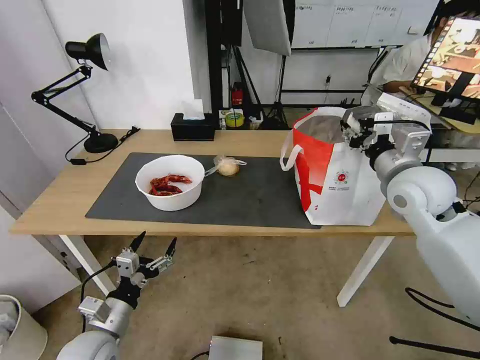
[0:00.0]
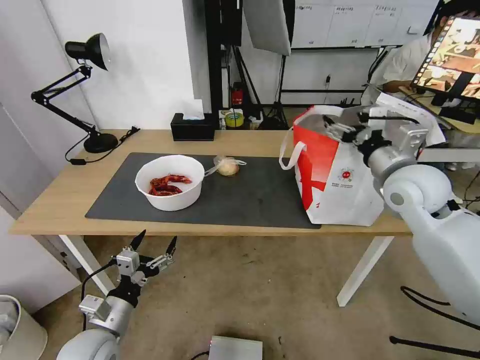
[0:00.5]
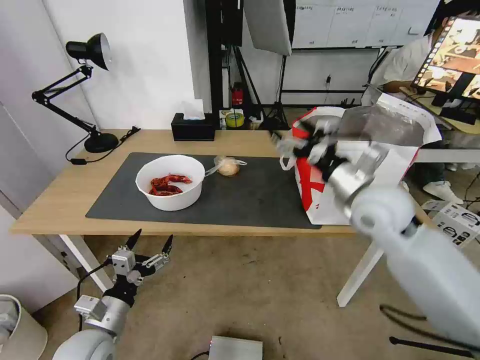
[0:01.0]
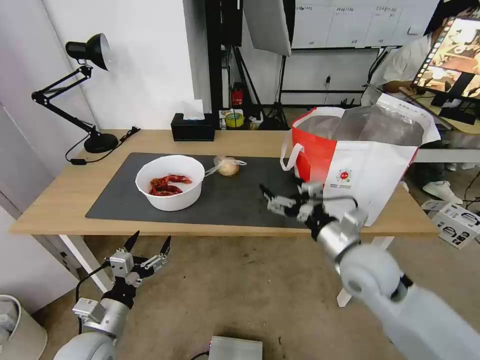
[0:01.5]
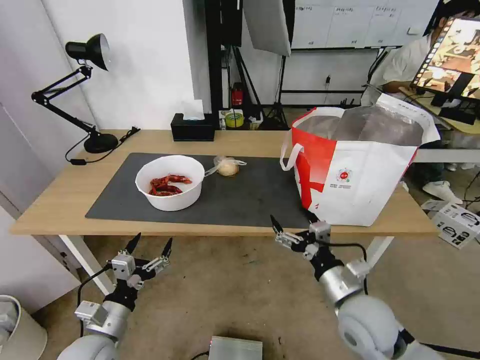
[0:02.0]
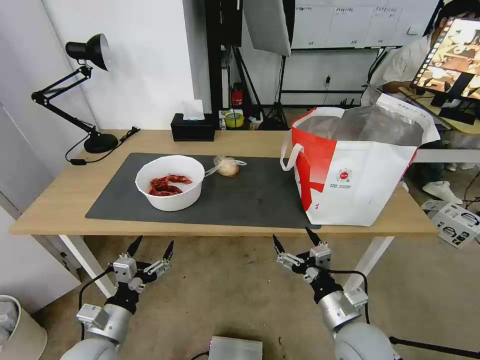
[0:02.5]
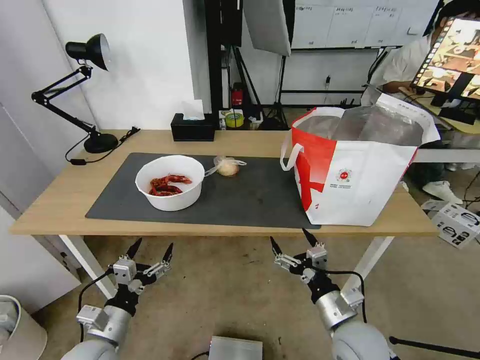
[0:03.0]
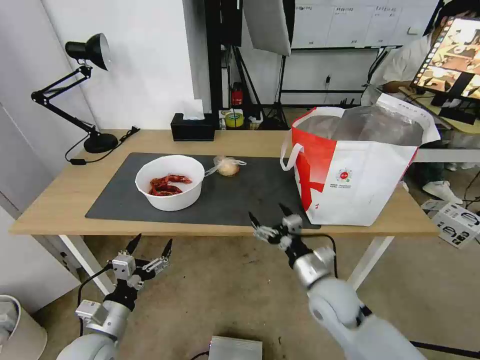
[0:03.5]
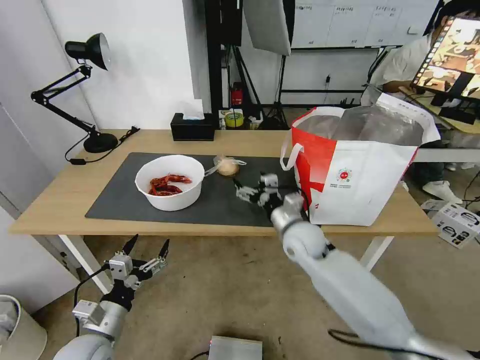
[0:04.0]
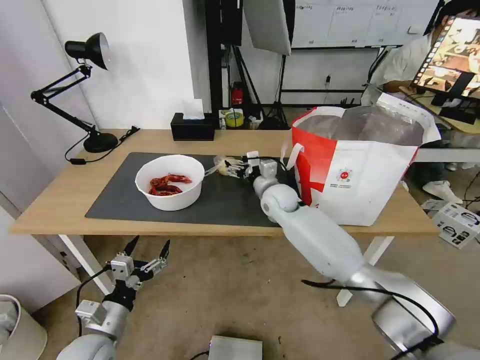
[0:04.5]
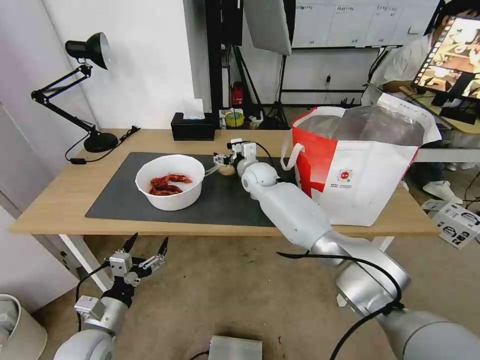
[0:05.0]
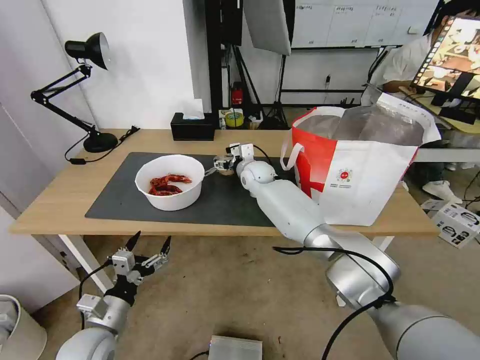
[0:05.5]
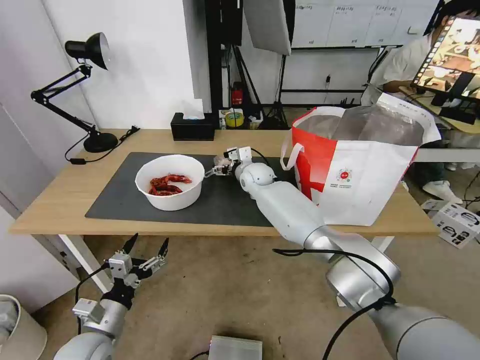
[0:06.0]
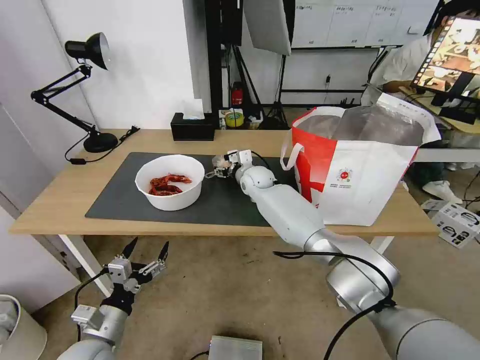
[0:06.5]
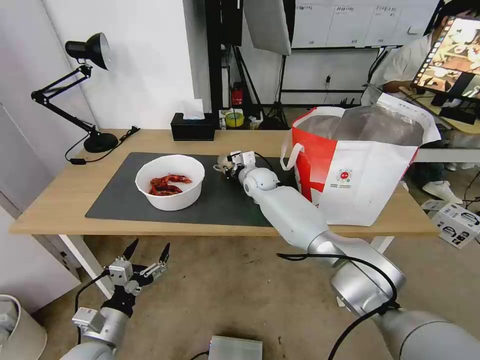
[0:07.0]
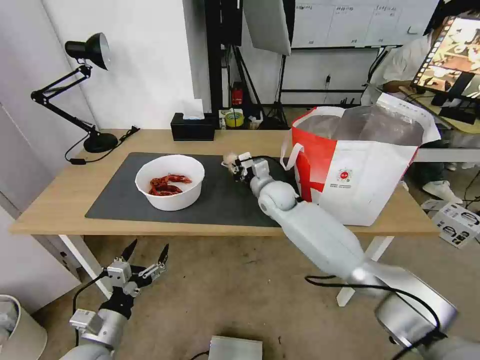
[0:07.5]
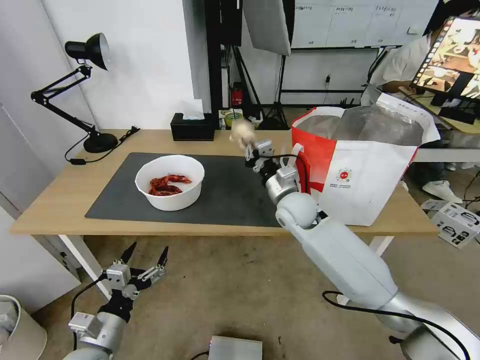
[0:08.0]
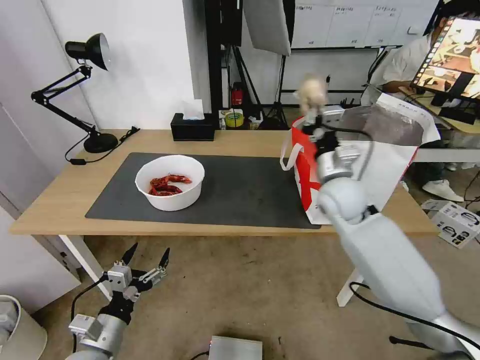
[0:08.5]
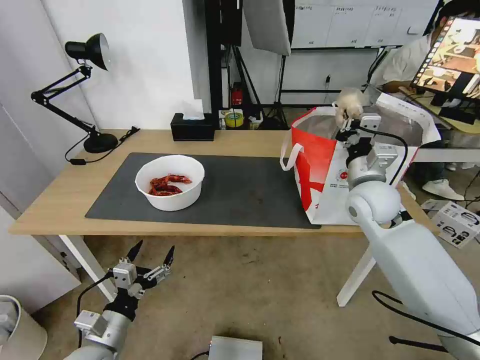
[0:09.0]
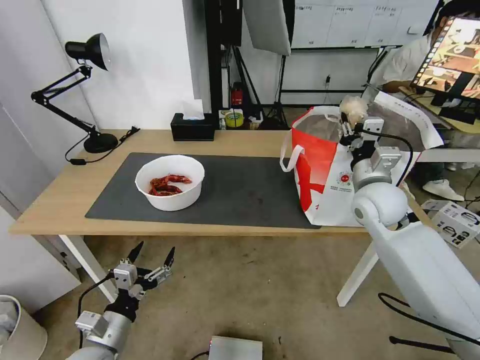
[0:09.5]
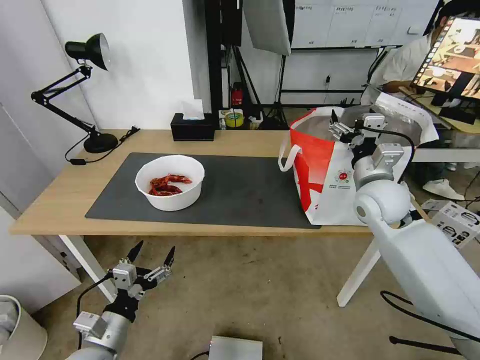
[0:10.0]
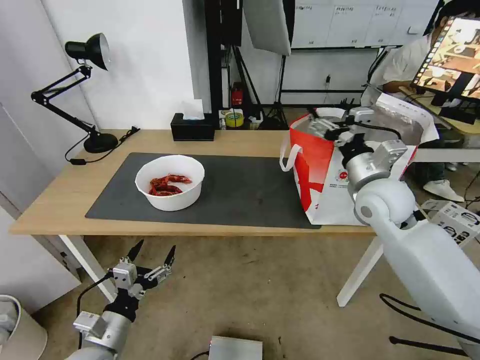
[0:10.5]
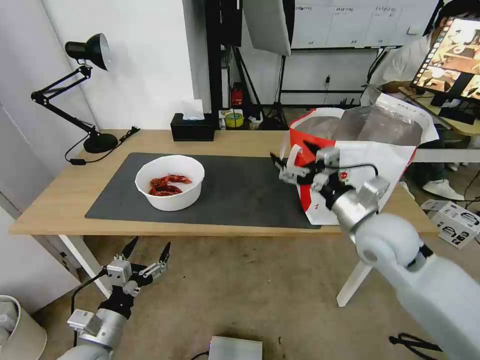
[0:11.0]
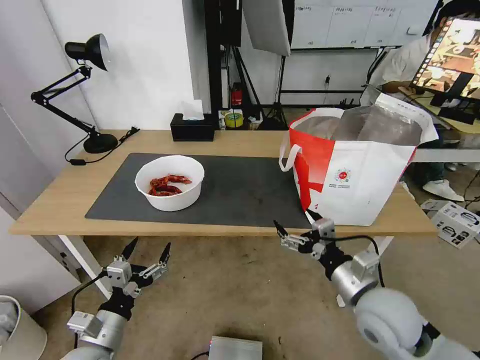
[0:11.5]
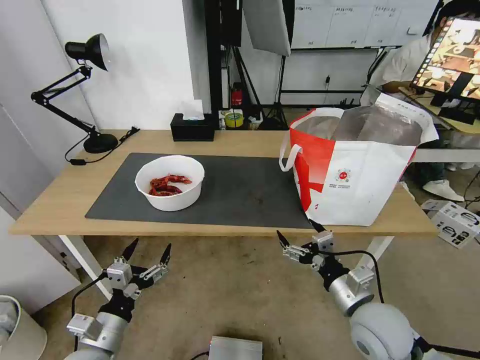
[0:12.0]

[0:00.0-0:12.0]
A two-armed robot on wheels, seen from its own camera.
Task of the whole recording: Pick up the trash from the table and place it into the takeout bag.
0:00.0 to 0:02.0: The right gripper is displaced downward, backward and to the left by approximately 25 cm, and opens up.
0:02.0 to 0:04.0: The right gripper moves forward and to the left, some 20 cm.
0:04.0 to 0:06.0: The right gripper moves forward and to the left, approximately 20 cm.
0:06.0 to 0:08.0: The right gripper is displaced backward and to the right by roughly 15 cm, and closes its fingers.
0:08.0 to 0:10.0: The right gripper heads to the right and upward, covering about 15 cm, and opens its fingers.
0:10.0 to 0:12.0: The right gripper shifts about 25 cm backward and downward.

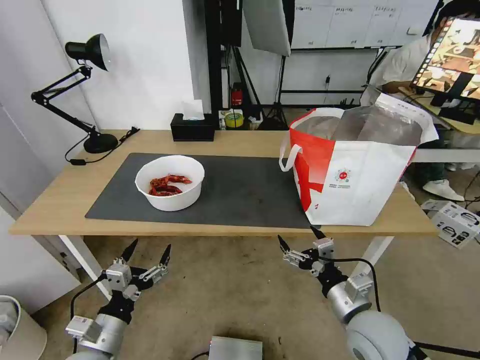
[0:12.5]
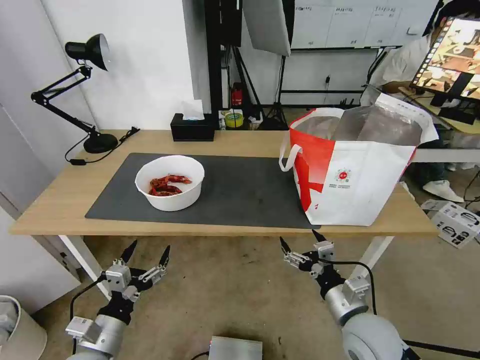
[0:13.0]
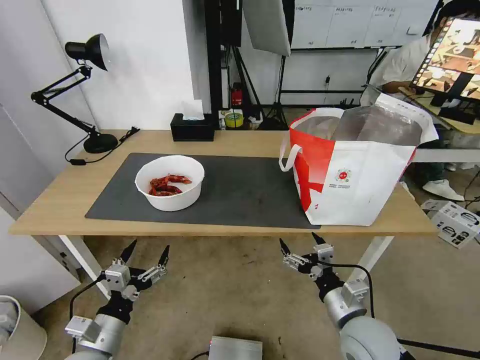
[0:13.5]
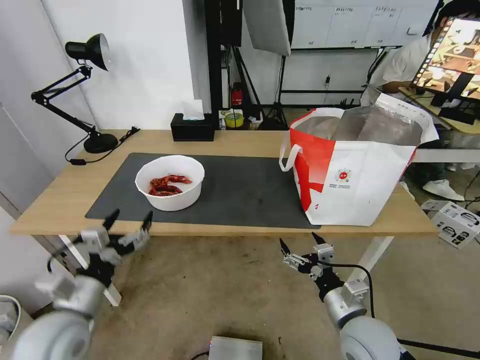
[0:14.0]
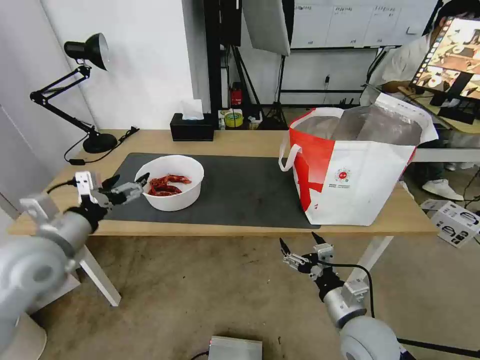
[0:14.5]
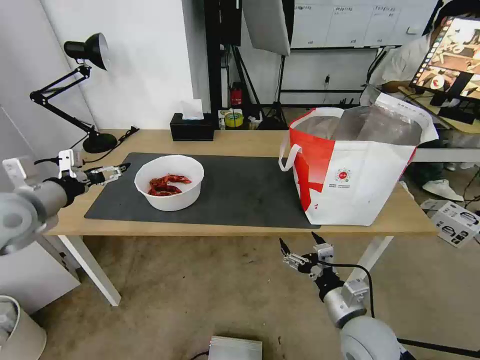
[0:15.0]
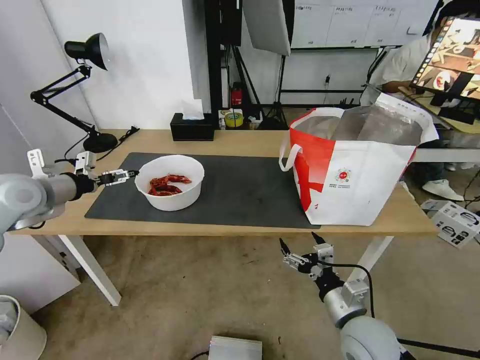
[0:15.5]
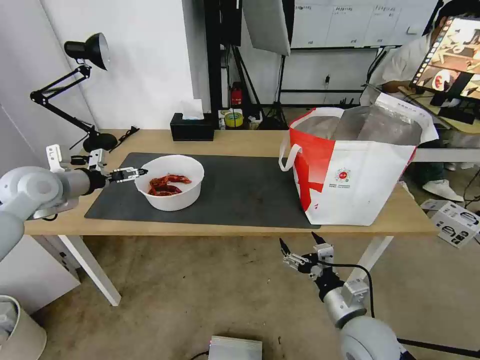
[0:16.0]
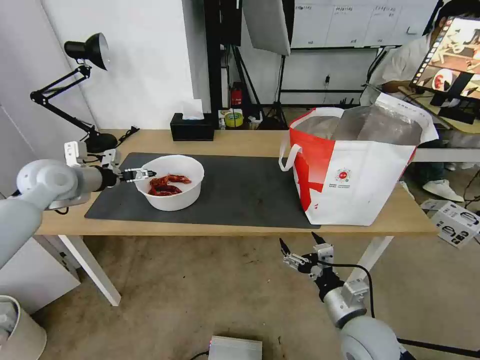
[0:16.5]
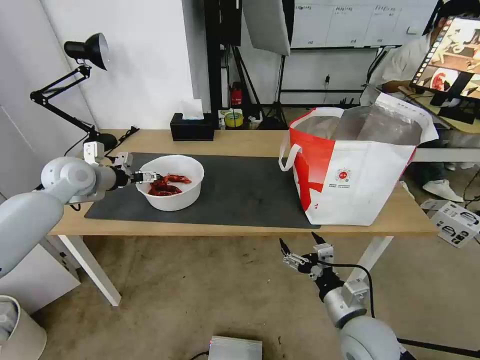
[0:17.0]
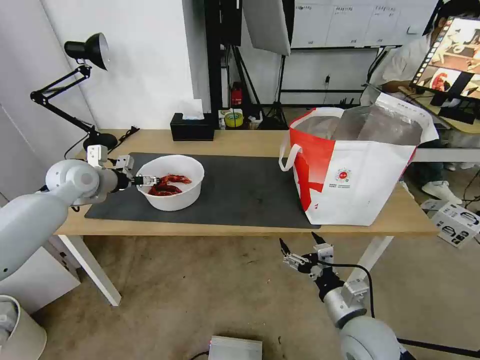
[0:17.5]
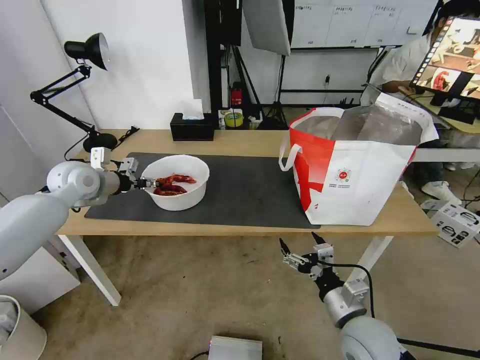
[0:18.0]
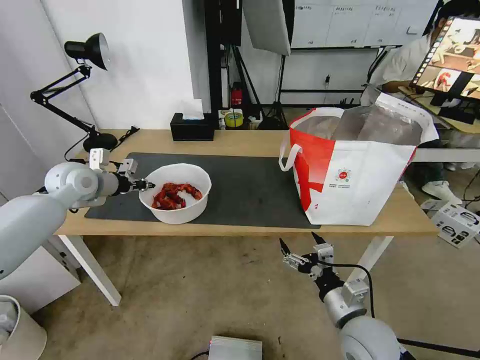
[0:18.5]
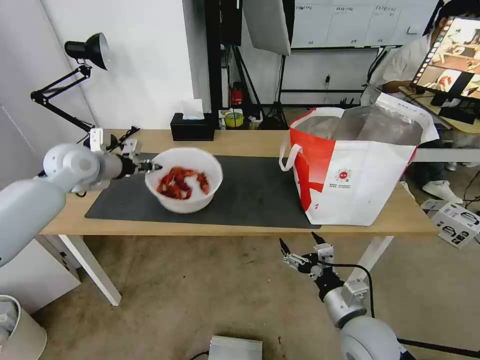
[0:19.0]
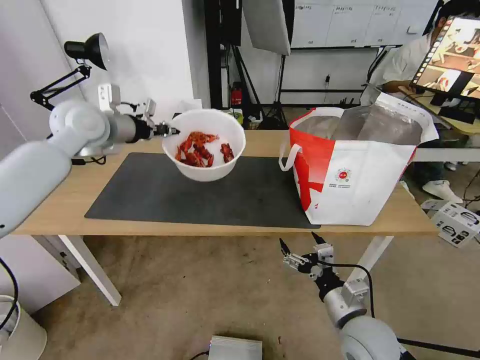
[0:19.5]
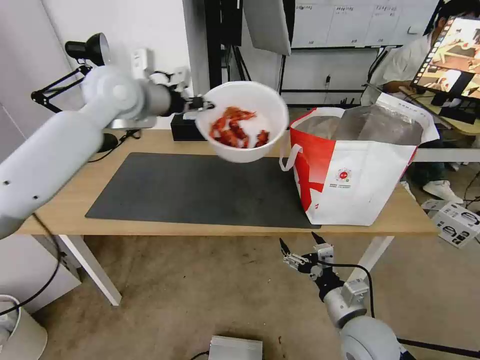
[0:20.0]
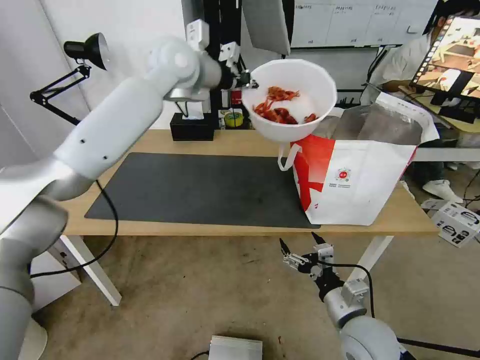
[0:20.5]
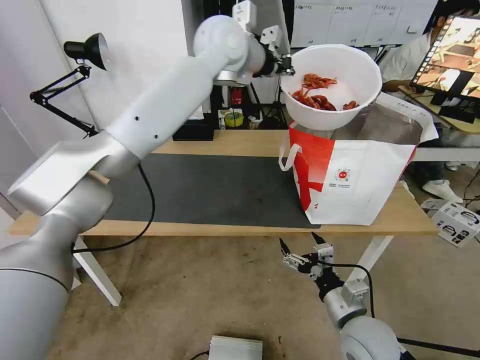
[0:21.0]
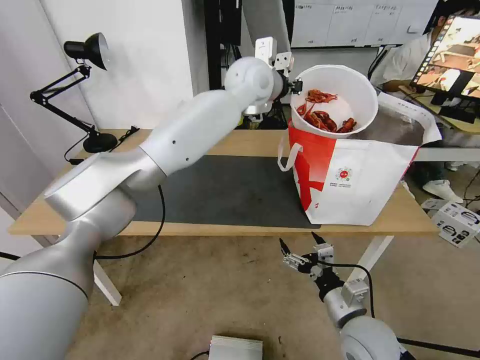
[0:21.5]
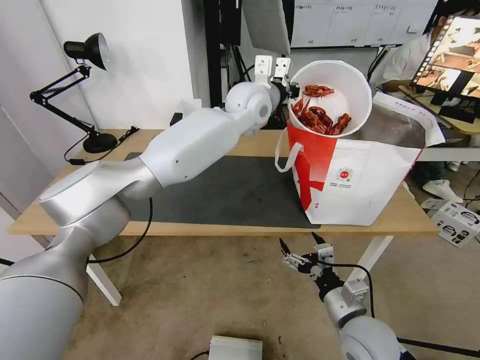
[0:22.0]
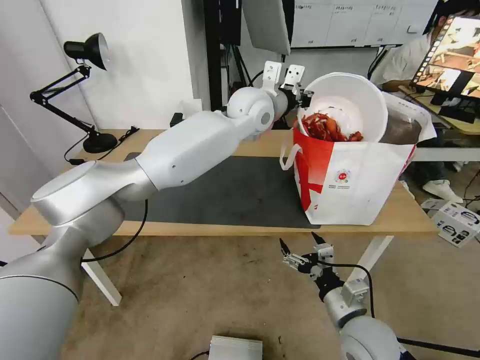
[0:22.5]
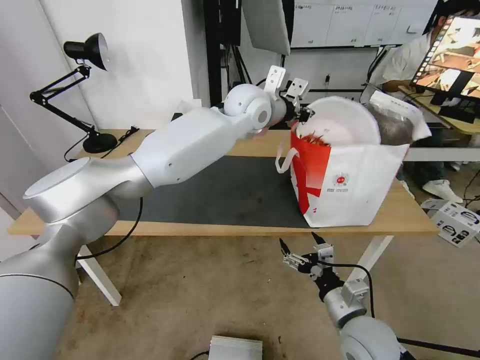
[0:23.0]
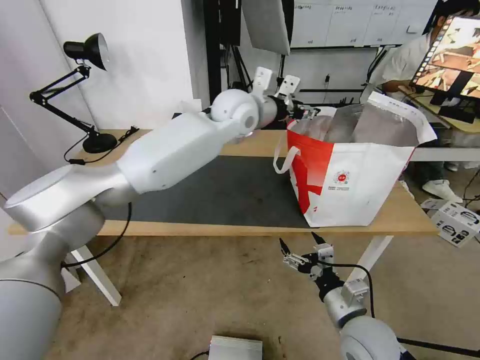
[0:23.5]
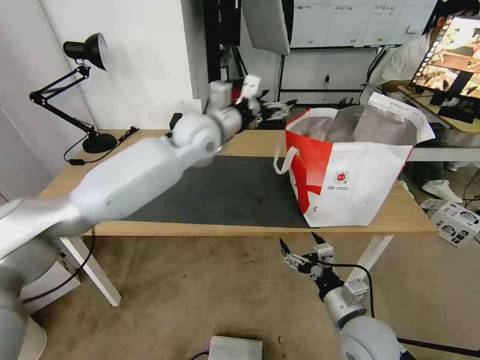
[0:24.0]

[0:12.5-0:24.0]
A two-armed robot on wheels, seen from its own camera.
Task of the whole recording: Pick up the trash from the table and place it into the takeout bag.
0:12.5 to 0:14.5: The left gripper is displaced upward and forward by some 25 cm.
0:14.5 to 0:16.5: The left gripper moves forward, some 15 cm.
0:16.5 to 0:18.5: The left gripper closes up.
0:18.5 to 0:20.0: The left gripper is displaced upward and to the right by roughly 25 cm.
0:20.0 to 0:22.0: The left gripper moves to the right, roughly 25 cm.
0:22.0 to 0:24.0: The left gripper shifts about 15 cm to the left and backward, and opens up.

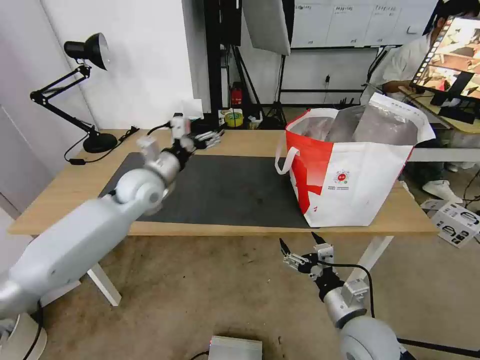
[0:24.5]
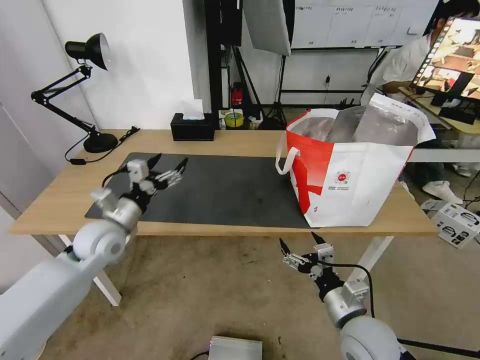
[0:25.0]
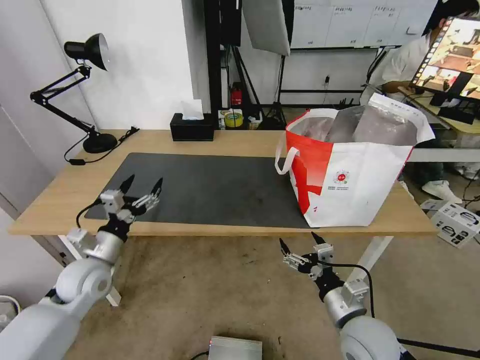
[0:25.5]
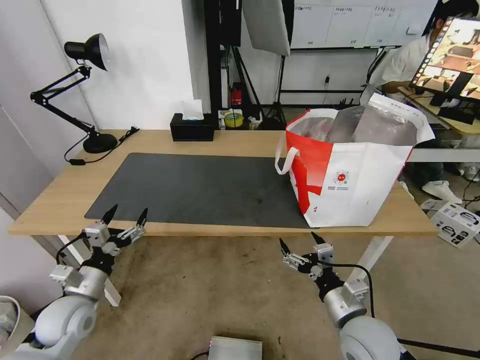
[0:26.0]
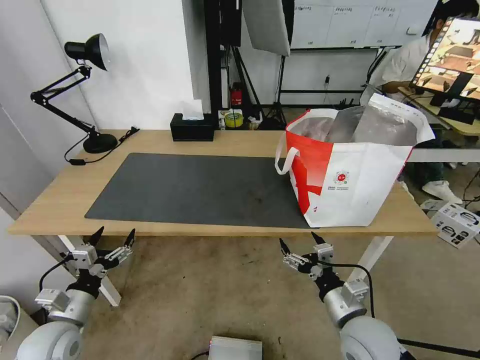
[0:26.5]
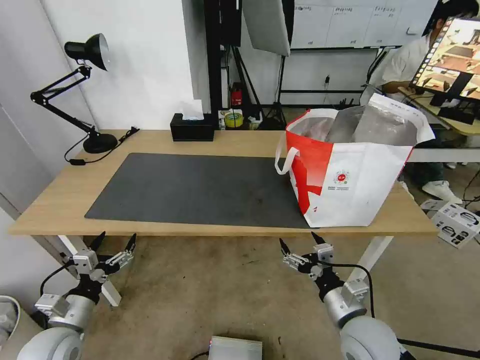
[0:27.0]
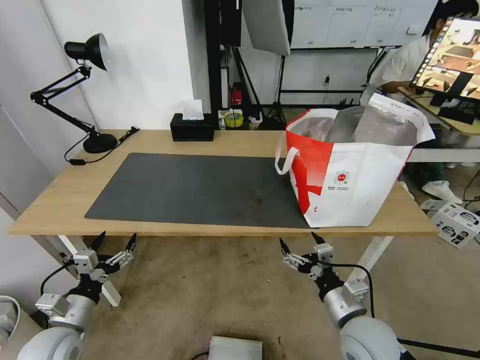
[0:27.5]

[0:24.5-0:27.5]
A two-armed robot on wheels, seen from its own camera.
Task of the whole recording: Pick up the trash from the table and place it into the takeout bag.
0:24.5 to 0:26.0: The left gripper moves backward, downward and to the left, approximately 30 cm.
0:26.0 to 0:27.5: The left gripper heads backward, covering approximately 5 cm.
